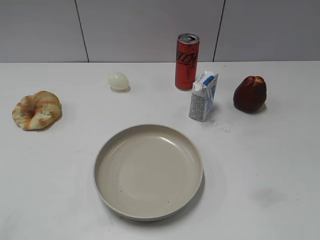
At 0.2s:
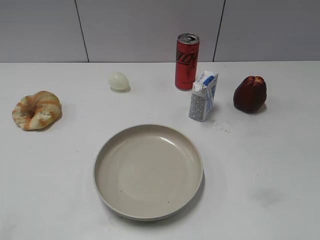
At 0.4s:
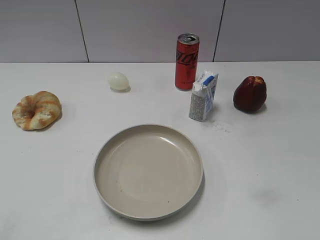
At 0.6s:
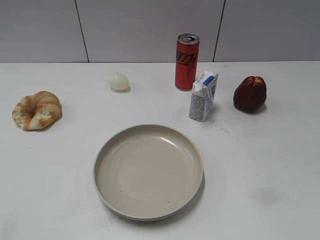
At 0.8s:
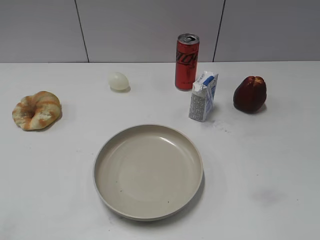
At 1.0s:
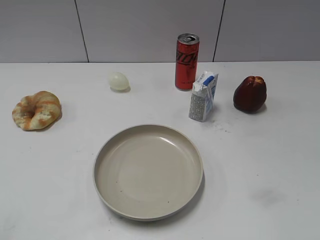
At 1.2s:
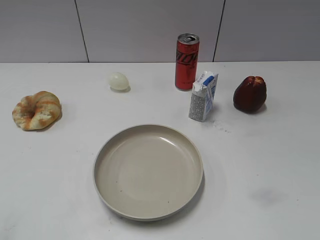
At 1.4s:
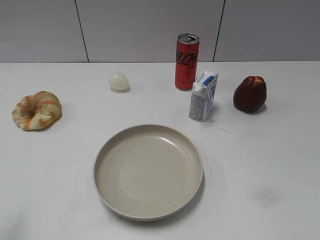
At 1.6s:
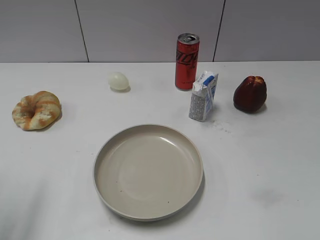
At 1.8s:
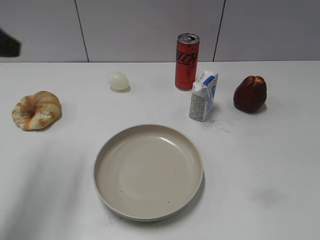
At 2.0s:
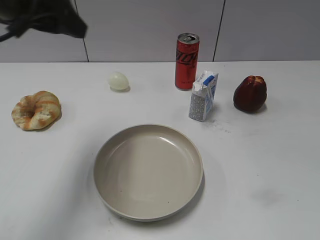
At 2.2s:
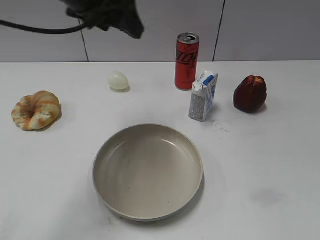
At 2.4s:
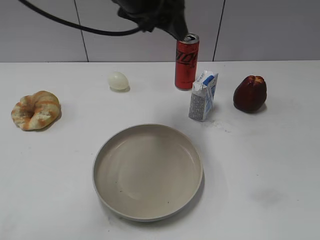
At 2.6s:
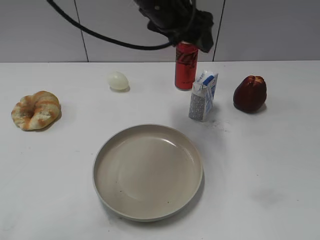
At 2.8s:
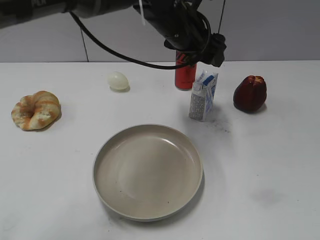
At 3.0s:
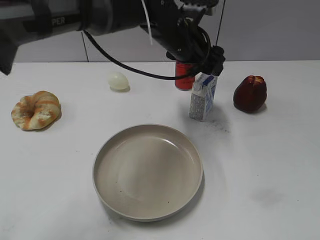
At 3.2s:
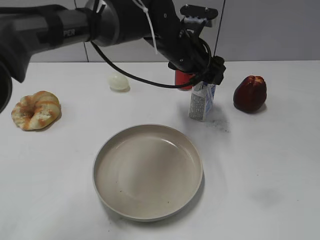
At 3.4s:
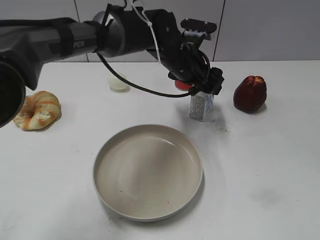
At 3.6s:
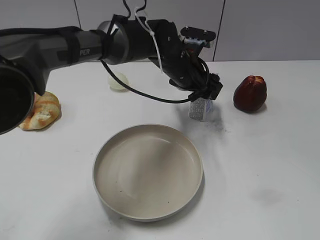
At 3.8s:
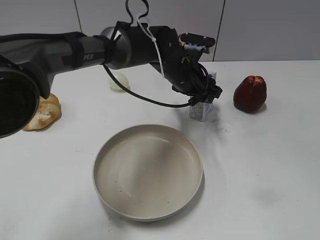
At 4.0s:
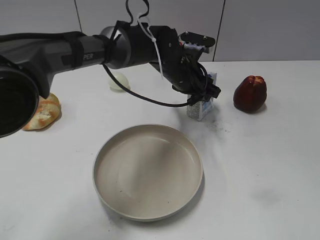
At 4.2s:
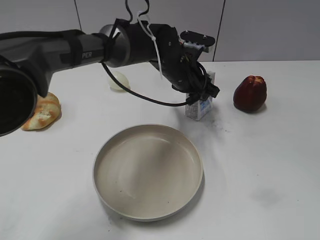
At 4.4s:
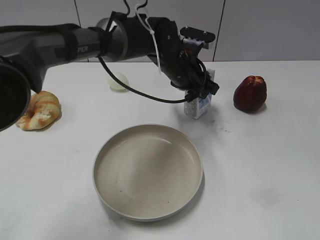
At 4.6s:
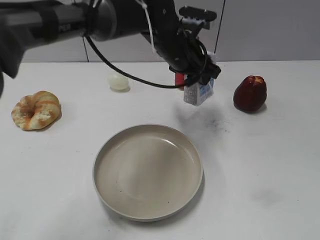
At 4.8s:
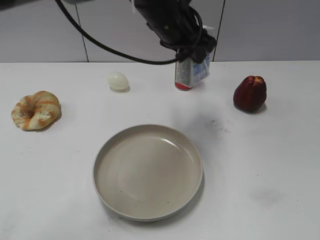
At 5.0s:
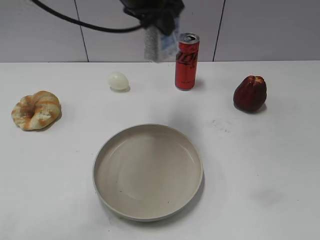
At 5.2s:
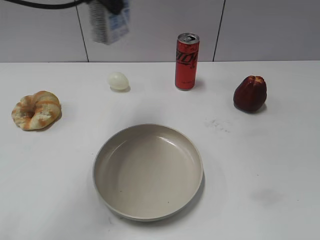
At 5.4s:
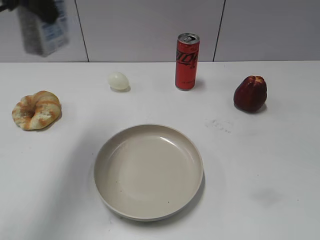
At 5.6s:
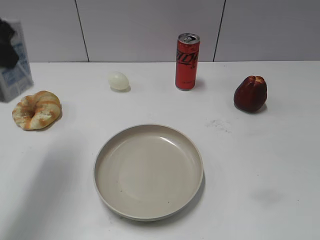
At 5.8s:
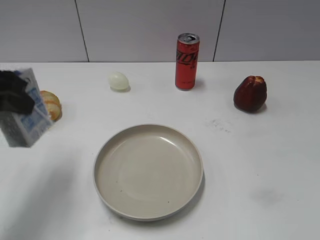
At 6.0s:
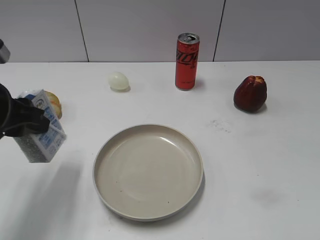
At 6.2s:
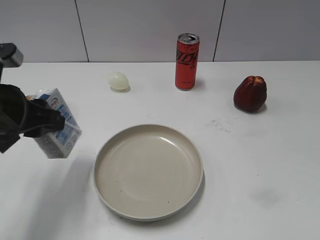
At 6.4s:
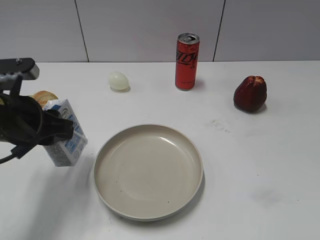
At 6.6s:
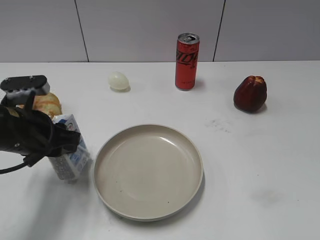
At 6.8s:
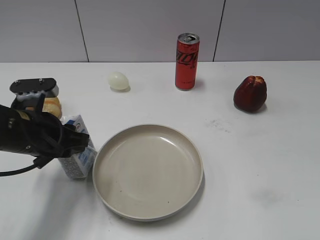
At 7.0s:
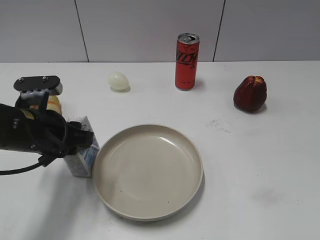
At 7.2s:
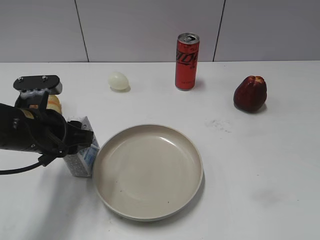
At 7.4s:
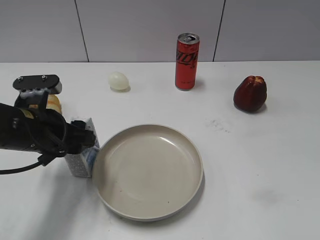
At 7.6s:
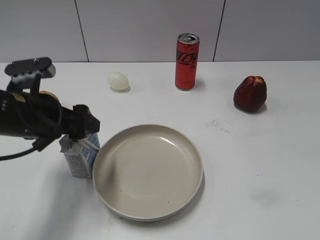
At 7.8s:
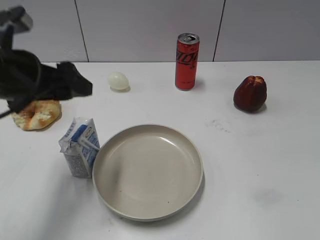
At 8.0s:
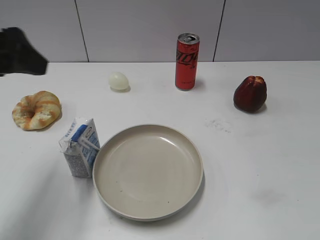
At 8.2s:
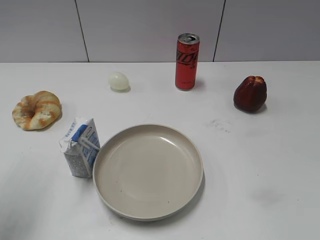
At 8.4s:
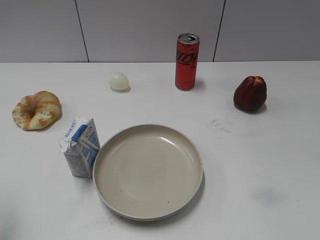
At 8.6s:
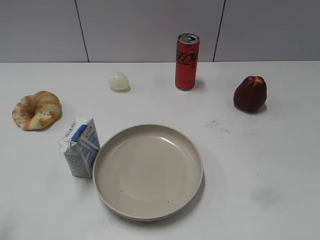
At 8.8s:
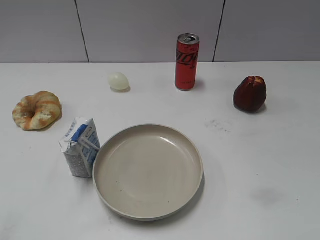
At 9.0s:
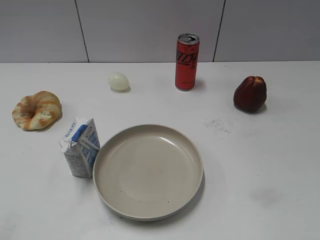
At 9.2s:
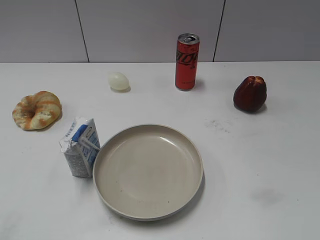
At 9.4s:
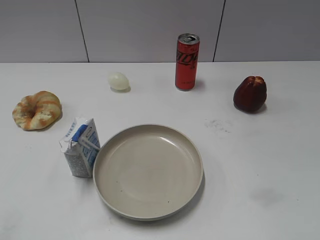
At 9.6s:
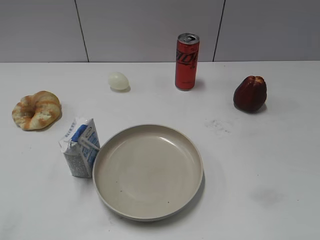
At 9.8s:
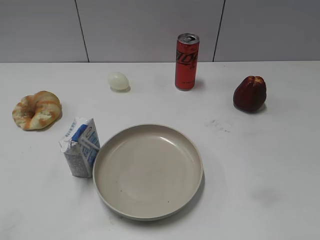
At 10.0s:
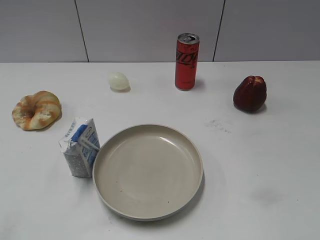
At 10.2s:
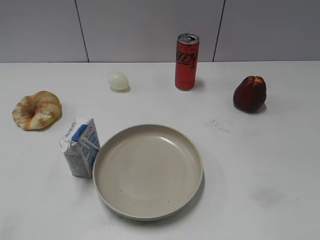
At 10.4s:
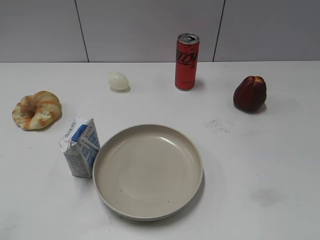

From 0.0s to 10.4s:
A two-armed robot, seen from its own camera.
Step, from 0.0s to 4.0s: Grasp the milk with left gripper.
Step, from 4.2s to 7.6s: Place the milk on the table with left gripper.
From 1.4s to 3.0s: The left gripper travels to the right and forward by approximately 50 cm.
From 3.0s to 4.4s: The left gripper is displaced downward by approximately 5 cm, and closes up.
From 4.4s to 6.0s: The left gripper goes about 35 cm to the left and backward.
From 6.0s to 7.4s: The left gripper heads downward, covering approximately 5 cm, and opens its fingers.
From 7.4s to 9.0s: The left gripper heads backward, to the left and upward, covering about 30 cm.

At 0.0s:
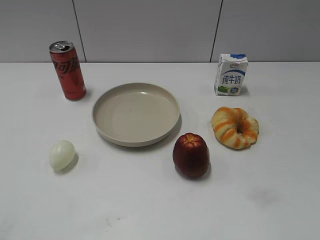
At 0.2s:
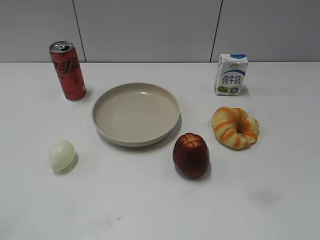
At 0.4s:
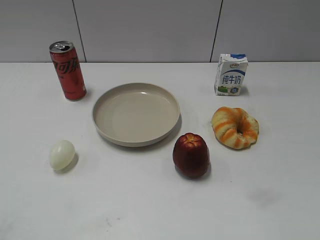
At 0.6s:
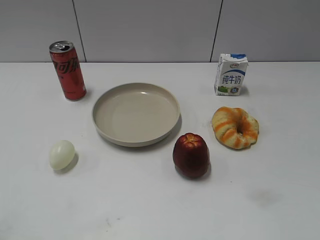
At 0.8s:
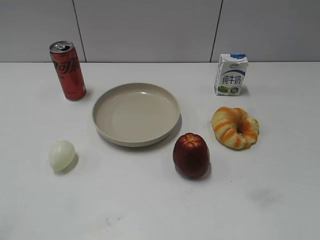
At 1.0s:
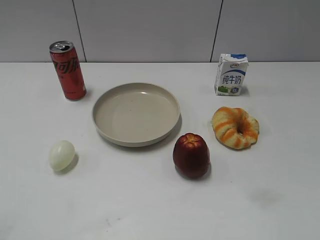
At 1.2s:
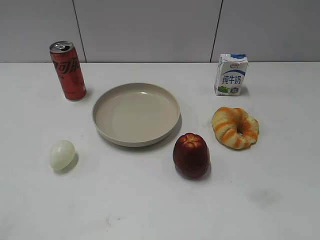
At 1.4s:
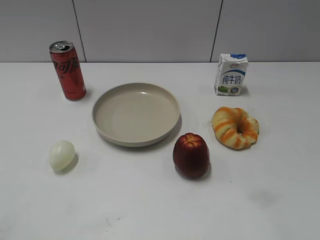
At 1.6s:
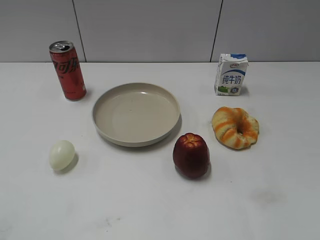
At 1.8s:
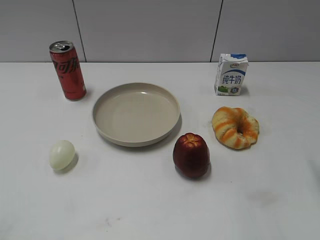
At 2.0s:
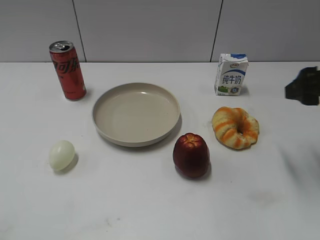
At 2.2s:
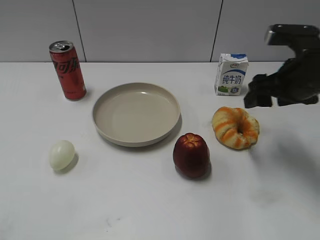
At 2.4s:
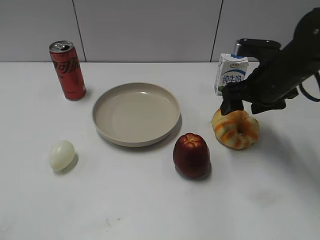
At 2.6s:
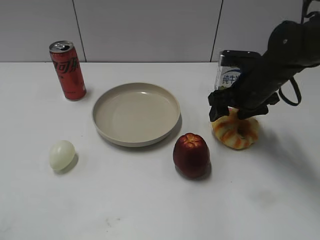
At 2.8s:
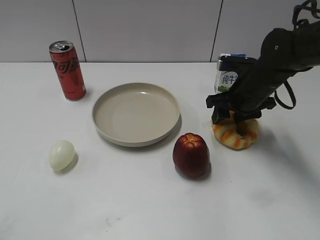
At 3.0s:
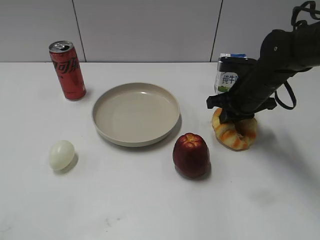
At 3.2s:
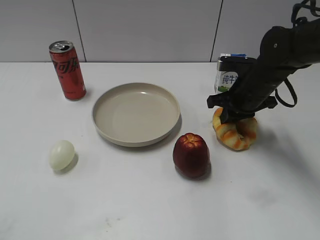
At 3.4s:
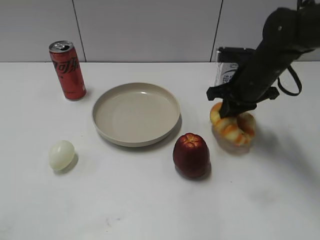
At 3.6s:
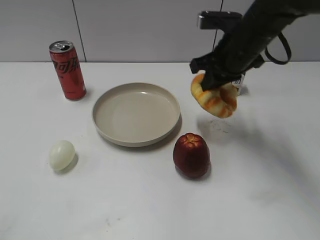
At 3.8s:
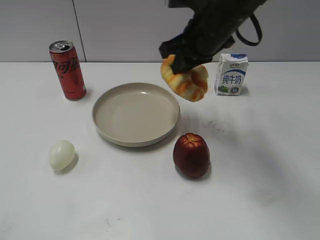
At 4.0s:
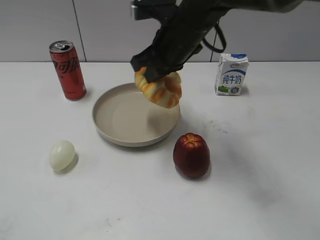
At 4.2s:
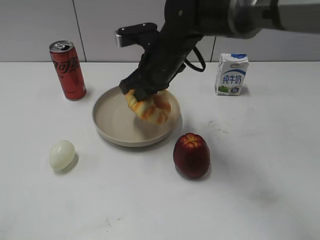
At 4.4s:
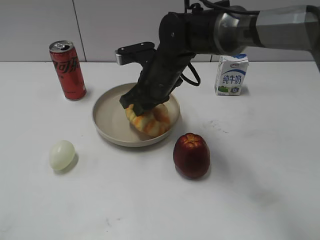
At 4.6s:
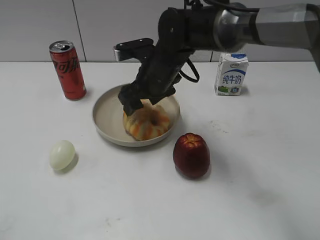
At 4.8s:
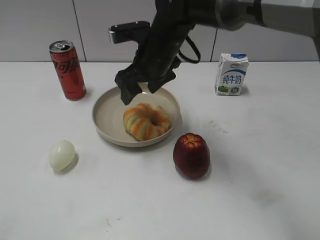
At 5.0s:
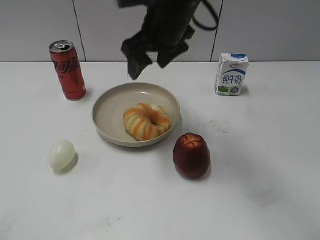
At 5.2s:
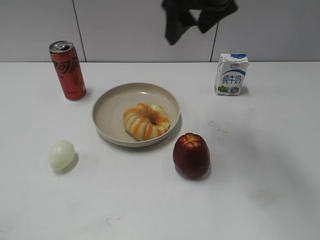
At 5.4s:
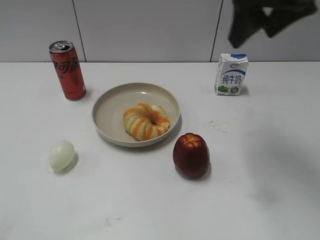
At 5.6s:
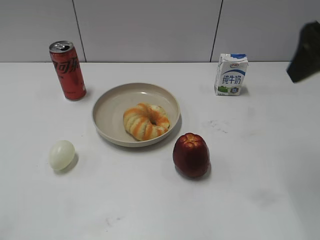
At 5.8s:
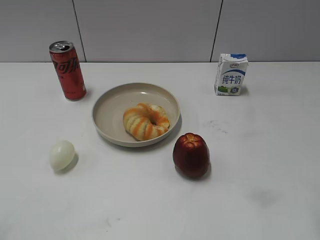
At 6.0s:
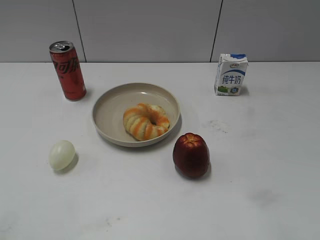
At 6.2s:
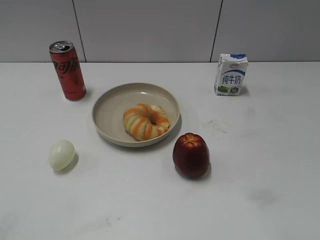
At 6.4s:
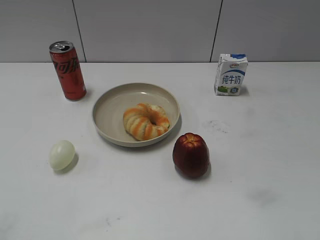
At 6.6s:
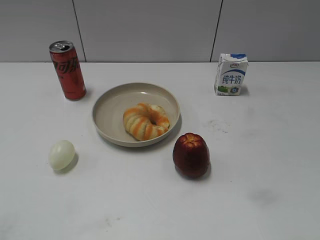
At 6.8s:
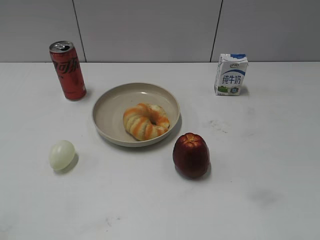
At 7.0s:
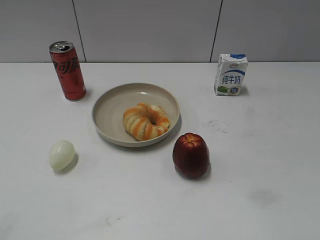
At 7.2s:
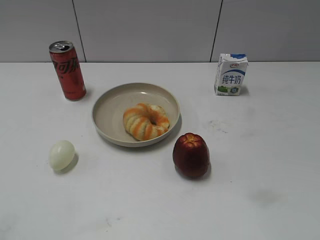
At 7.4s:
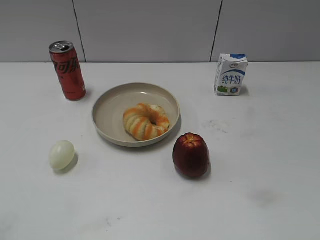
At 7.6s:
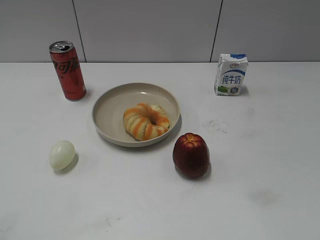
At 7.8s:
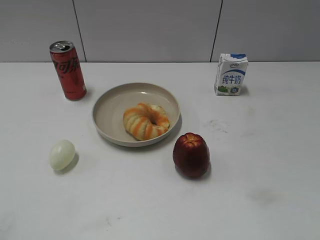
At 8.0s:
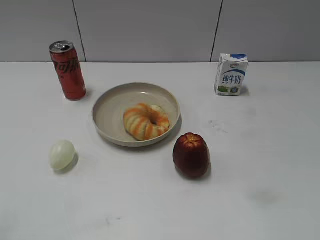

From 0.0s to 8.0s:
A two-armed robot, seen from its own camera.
Step, from 1.0s to 3.0s: Grasp the round bread with right gripper.
Step, from 3.2s to 4.6s: Place the round bread on the plate with right gripper.
From 1.6s to 3.2s: The right gripper travels forward, downward and to the left by roughly 30 cm, and closes up.
From 3.2s to 4.8s: The right gripper goes approximately 20 cm to the left, and opens up.
From 4.8s to 6.4s: The right gripper heads backward and to the right, covering some 40 cm.
